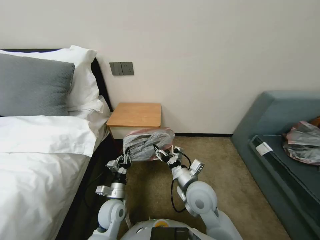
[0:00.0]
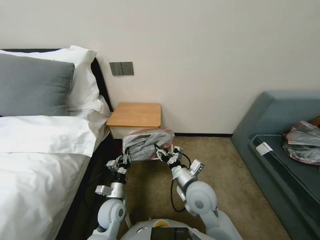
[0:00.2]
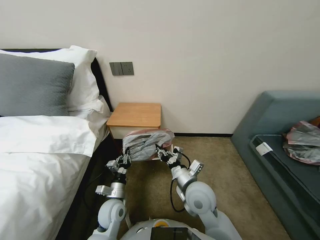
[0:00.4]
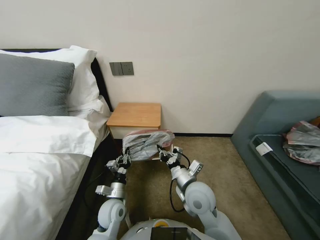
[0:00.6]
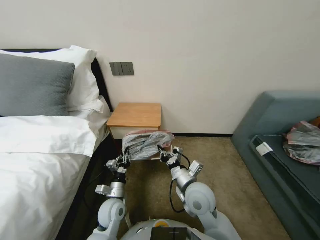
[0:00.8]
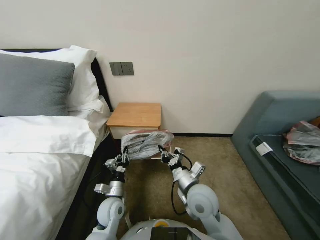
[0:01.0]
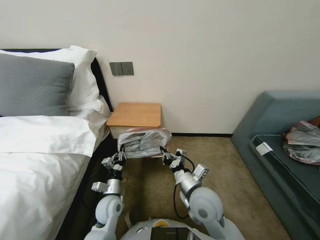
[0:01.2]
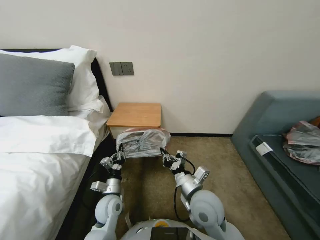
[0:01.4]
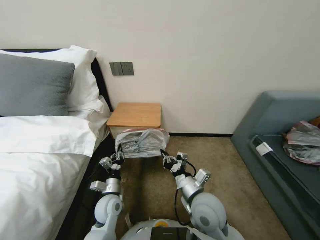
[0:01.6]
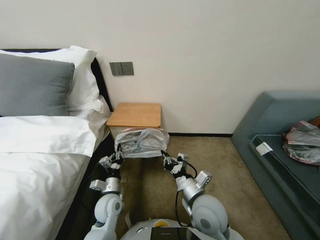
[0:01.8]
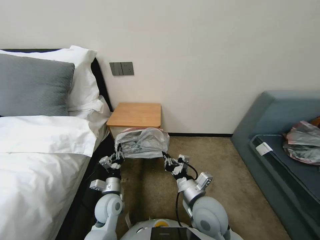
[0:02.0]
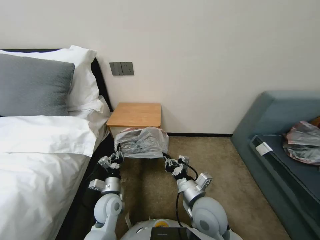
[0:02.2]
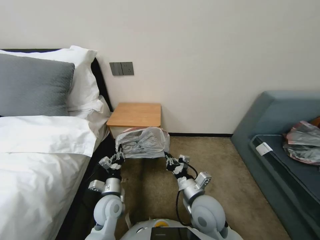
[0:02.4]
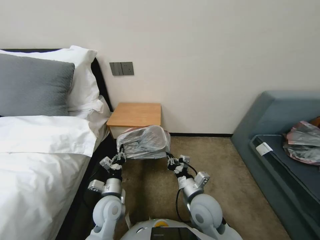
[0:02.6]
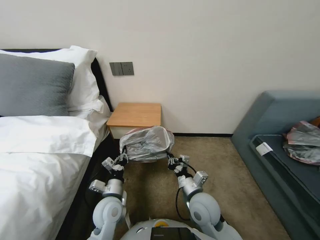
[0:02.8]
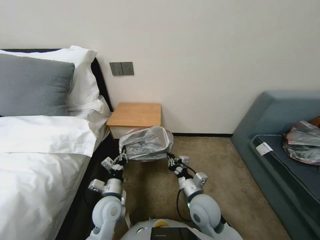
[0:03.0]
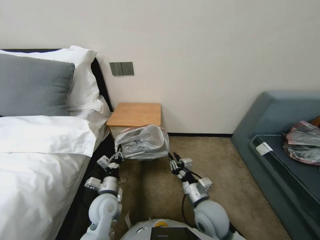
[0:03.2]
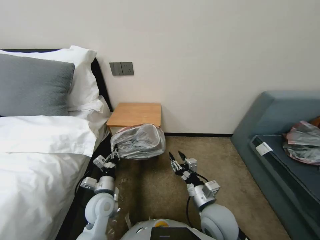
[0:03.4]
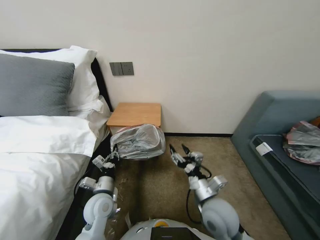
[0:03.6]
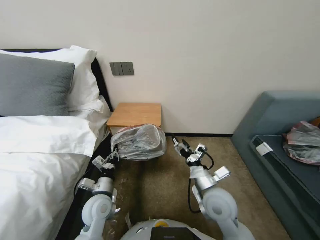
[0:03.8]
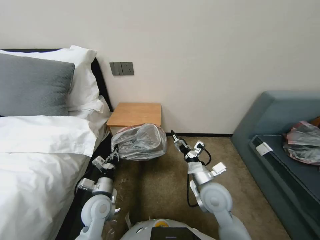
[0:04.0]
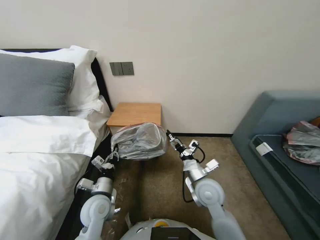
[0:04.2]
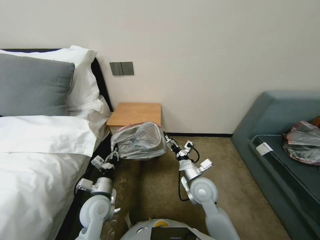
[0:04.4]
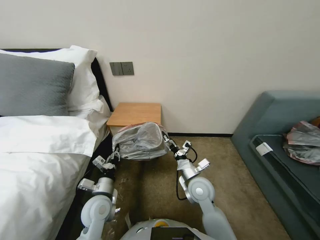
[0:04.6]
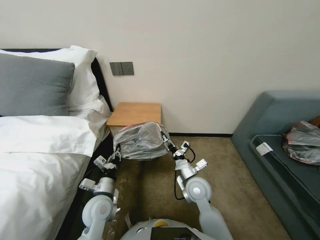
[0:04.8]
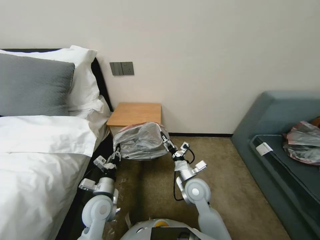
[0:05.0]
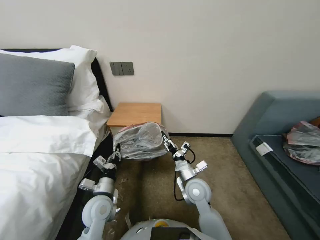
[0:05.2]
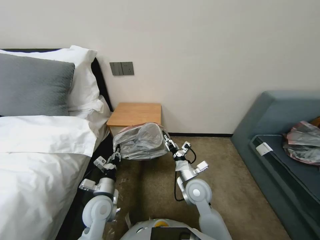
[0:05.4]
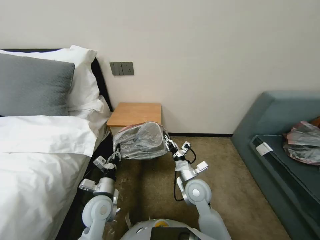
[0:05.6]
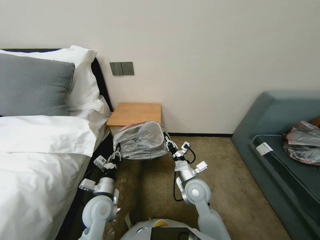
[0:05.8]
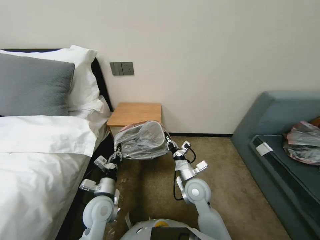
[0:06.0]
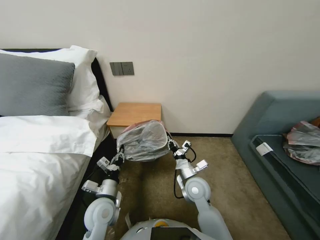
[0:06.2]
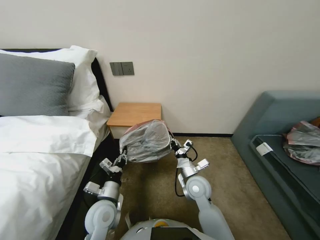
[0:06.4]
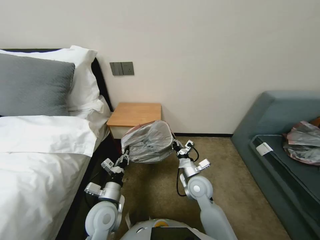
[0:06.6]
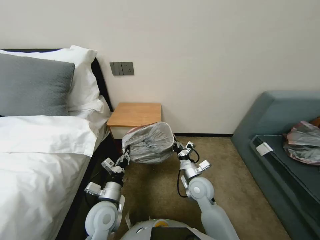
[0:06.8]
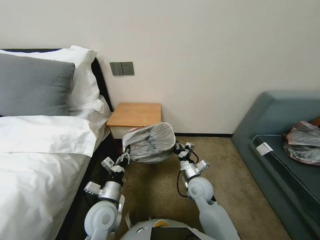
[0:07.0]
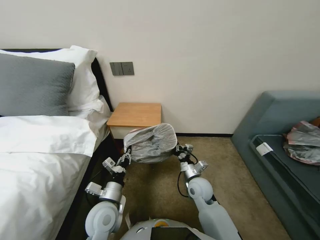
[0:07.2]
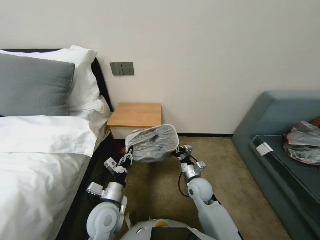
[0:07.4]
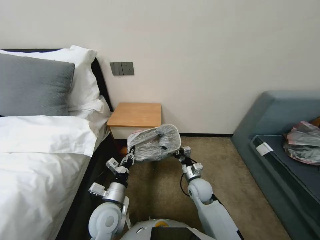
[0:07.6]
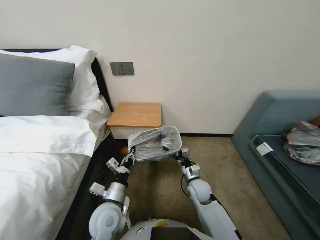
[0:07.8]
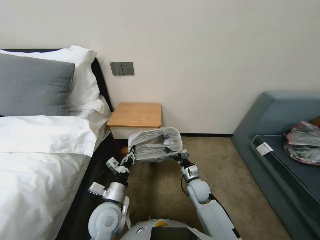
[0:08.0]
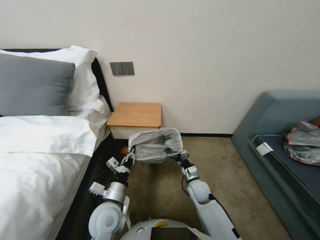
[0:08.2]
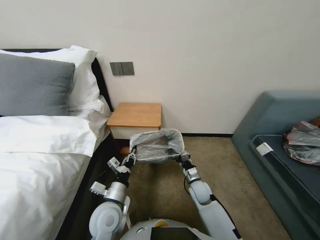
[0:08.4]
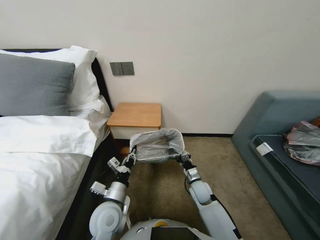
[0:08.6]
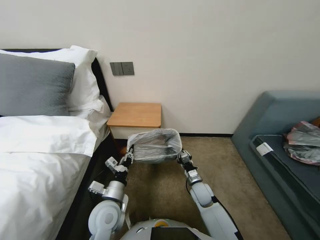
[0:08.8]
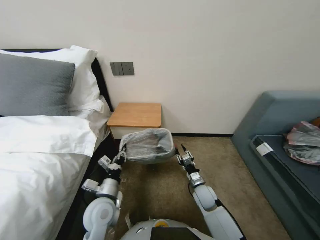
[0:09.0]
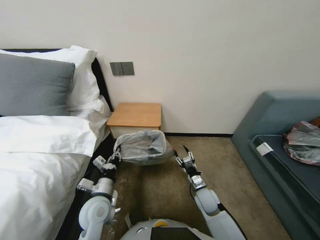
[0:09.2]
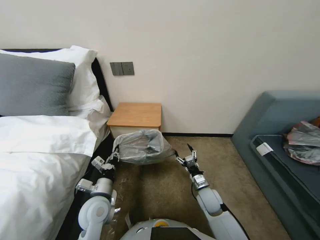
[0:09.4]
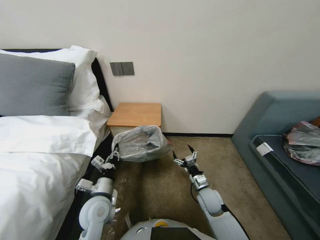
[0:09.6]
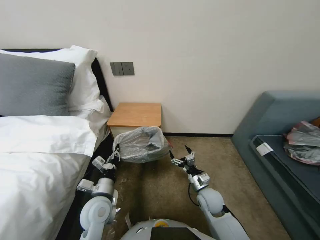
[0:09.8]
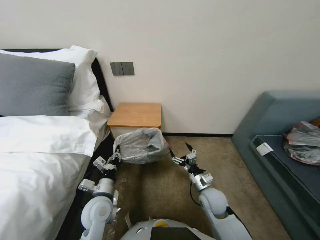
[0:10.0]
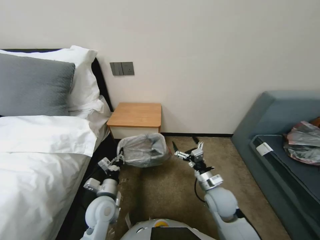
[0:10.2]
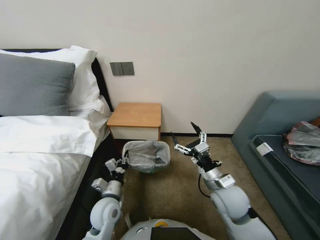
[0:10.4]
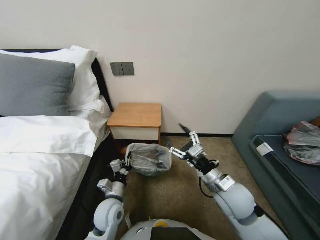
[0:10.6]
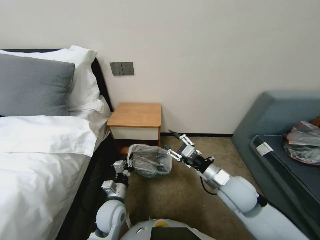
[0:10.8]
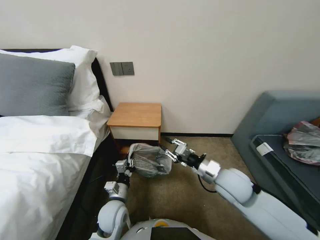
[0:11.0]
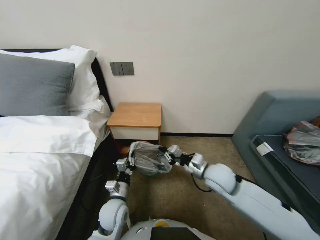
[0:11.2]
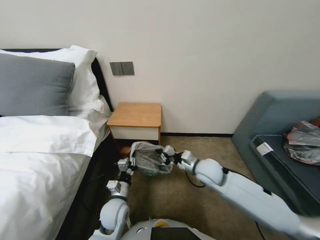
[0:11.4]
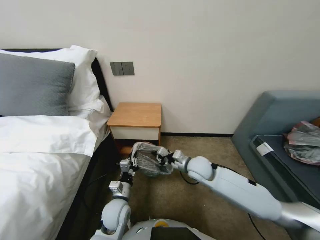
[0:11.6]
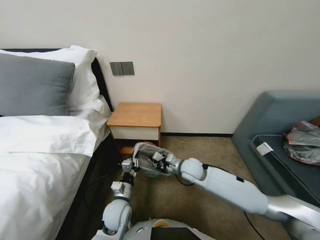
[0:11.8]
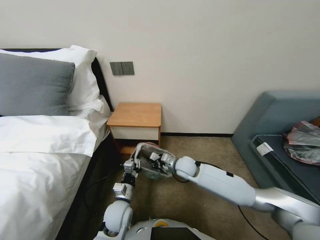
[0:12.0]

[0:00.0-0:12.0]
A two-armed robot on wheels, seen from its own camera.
Task of the whole recording: Pick up the garbage bag from the table and place it over the trash can.
0:00.0 to 0:01.6: The right gripper closes up.
0:01.6 to 0:03.0: The grippers make only small movements.
0:03.0 to 0:04.4: The right gripper moves forward, roughly 5 cm, and opens up.
0:04.4 to 0:06.0: The right gripper closes up.
0:06.0 to 0:07.6: The right gripper goes some 5 cm downward.
0:07.6 to 0:09.0: The right gripper shifts some 5 cm downward.
0:09.0 to 0:10.4: The right gripper moves upward, some 15 cm, and opens up.
0:10.4 to 0:12.0: The right gripper is displaced forward and to the left by some 15 cm, and closes; the left gripper shifts by some 5 cm.

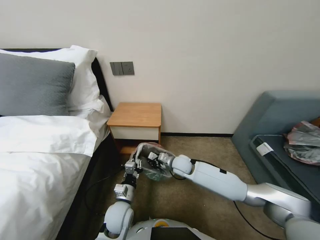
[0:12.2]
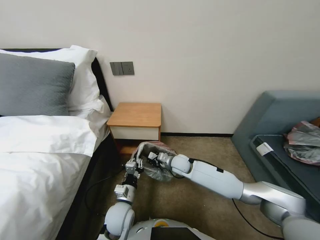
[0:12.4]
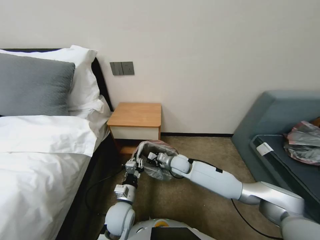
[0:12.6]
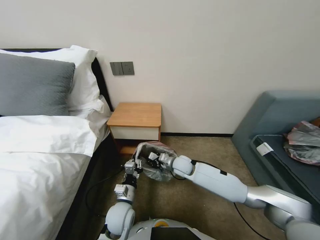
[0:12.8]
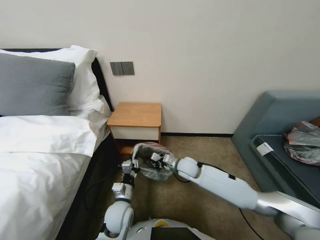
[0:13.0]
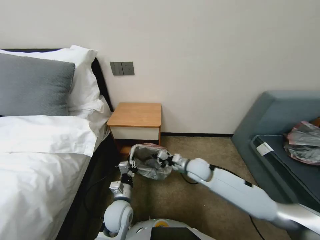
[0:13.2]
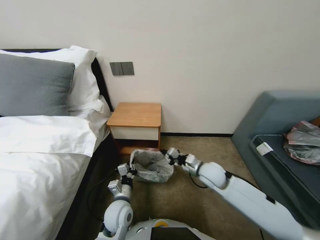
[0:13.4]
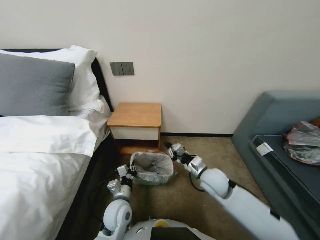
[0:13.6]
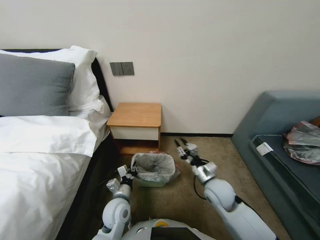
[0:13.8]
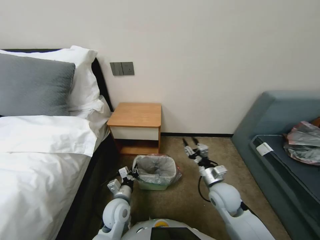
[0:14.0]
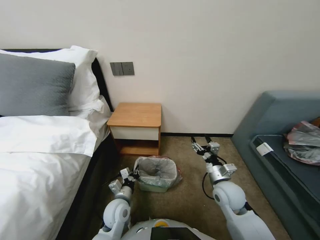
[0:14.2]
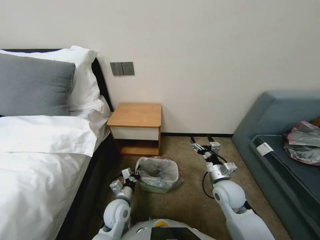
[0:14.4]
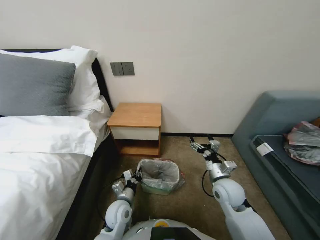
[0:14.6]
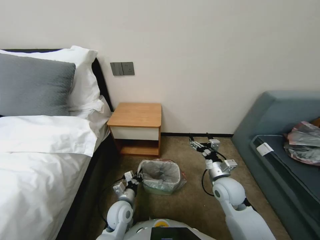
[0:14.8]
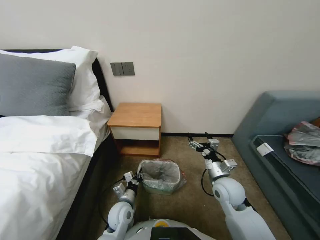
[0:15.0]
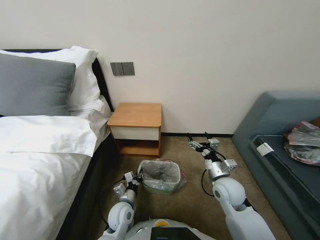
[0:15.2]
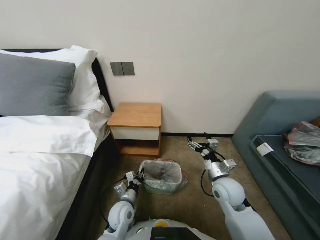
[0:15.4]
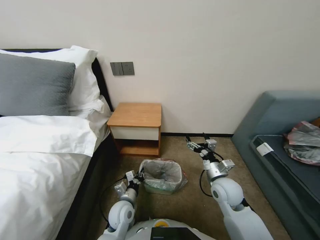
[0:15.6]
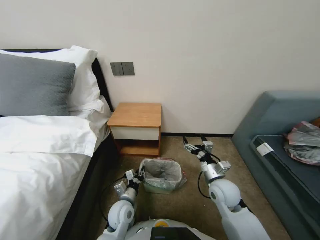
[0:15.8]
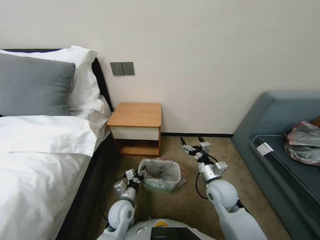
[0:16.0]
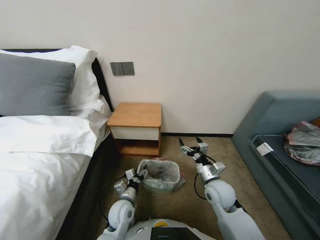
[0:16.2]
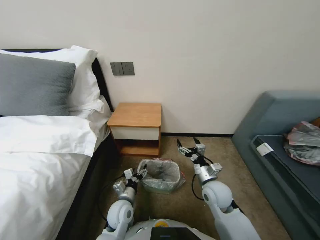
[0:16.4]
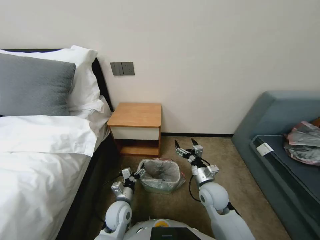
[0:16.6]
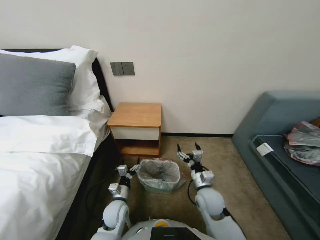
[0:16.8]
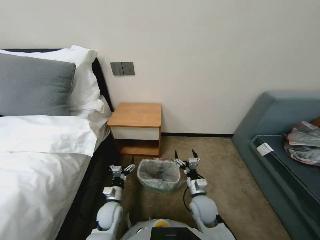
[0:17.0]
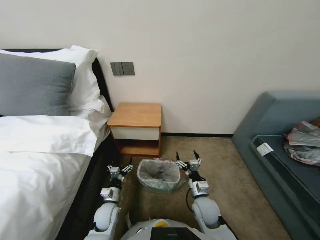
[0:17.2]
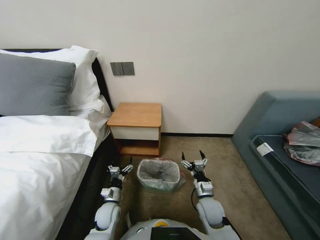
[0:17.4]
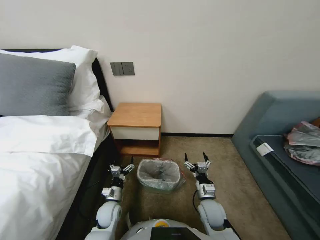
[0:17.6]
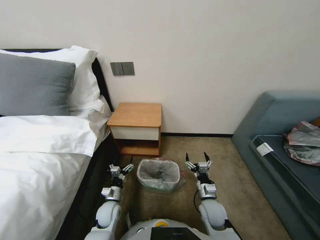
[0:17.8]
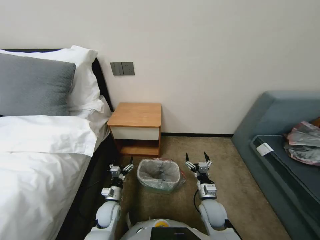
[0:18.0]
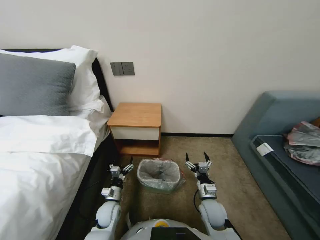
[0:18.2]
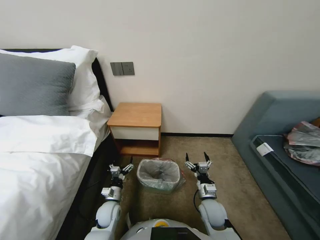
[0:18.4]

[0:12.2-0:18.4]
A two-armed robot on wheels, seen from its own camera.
Task of the whole recording: Pick up the garbage bag from the table and place it over the trash can.
0:12.2 to 0:13.8: The right gripper travels backward and to the right by approximately 15 cm.
0:13.8 to 0:15.4: The right gripper opens up; the left gripper is displaced downward by some 5 cm.
0:15.4 to 0:16.8: The left gripper opens its fingers. Meanwhile the right gripper travels to the left by some 5 cm.
0:16.8 to 0:18.4: The left gripper heads to the left, covering some 5 cm; the right gripper shifts roughly 5 cm downward.

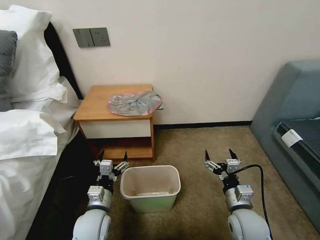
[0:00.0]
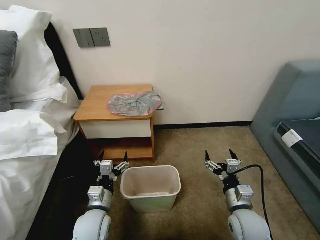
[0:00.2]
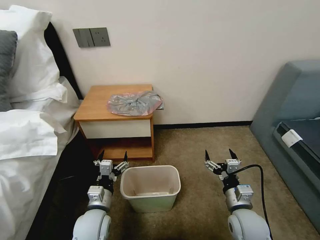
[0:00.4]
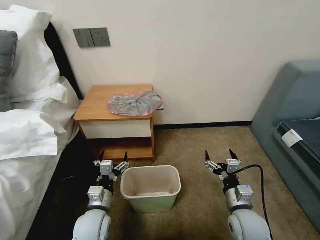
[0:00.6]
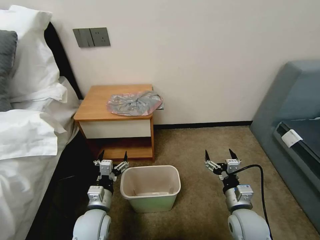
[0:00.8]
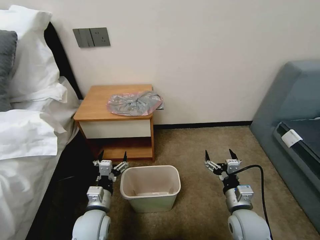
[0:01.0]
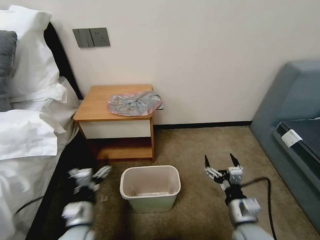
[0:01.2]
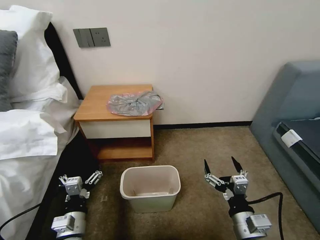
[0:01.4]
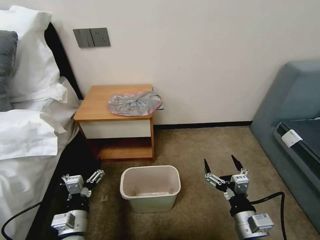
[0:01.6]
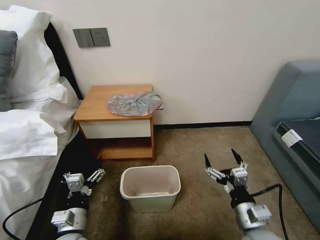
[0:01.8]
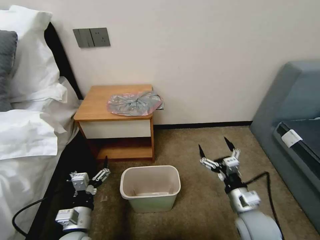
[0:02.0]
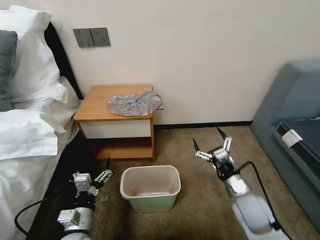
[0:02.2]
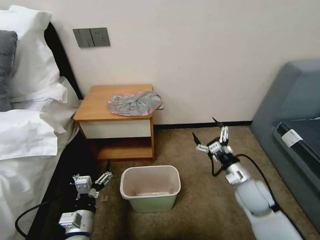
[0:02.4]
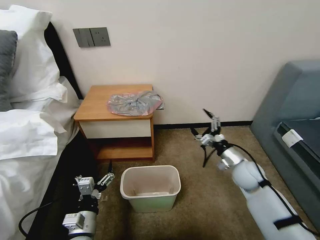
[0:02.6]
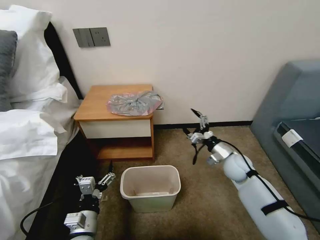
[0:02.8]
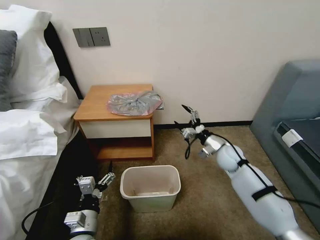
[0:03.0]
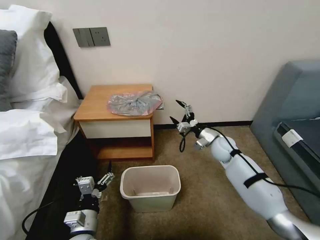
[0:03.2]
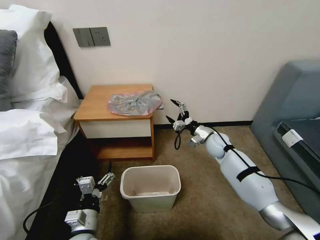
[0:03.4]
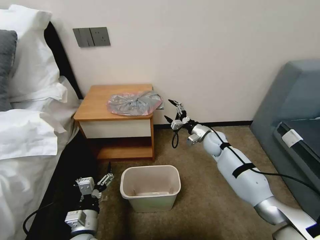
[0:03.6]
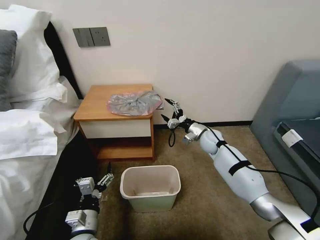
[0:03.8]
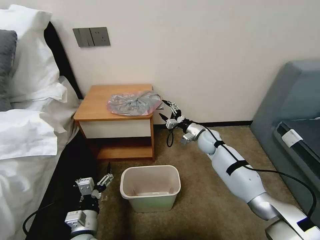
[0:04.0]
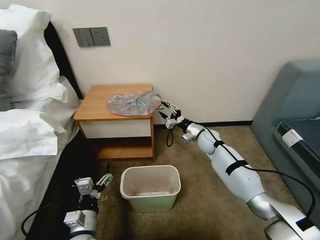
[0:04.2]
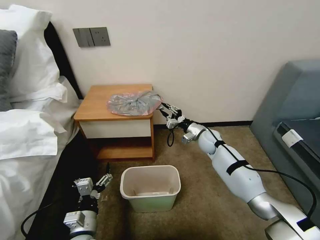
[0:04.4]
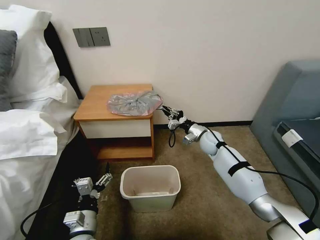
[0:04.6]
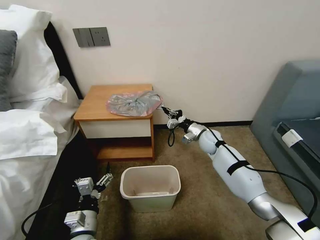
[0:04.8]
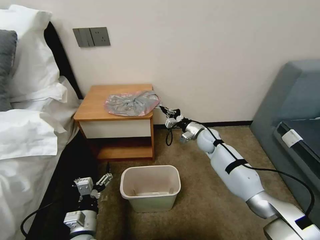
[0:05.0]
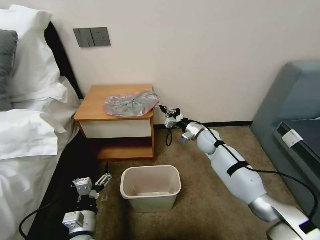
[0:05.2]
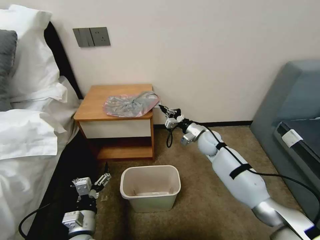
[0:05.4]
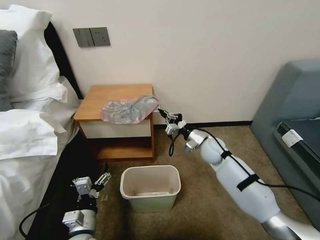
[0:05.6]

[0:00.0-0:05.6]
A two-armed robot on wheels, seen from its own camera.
Task of the whole recording: Pick up the garbage bag from the table and place it over the trash can.
0:01.4 to 0:02.8: The right gripper moves forward, some 25 cm.
0:02.8 to 0:04.2: The right gripper is displaced forward and to the left by some 15 cm, and closes up.
0:04.2 to 0:05.6: The right gripper closes its fingers.
